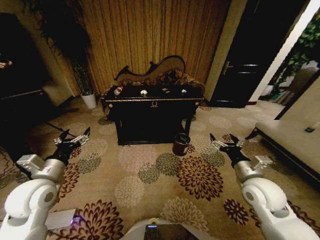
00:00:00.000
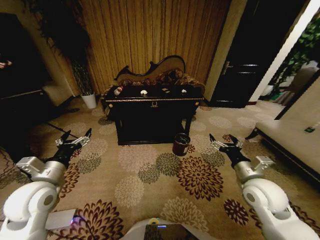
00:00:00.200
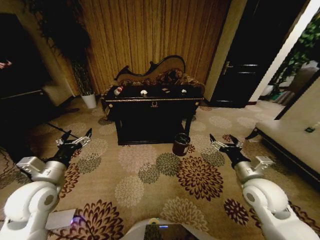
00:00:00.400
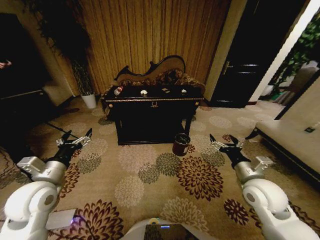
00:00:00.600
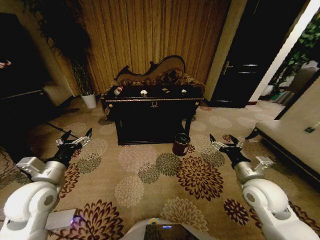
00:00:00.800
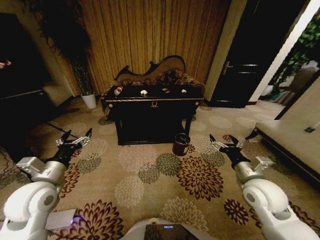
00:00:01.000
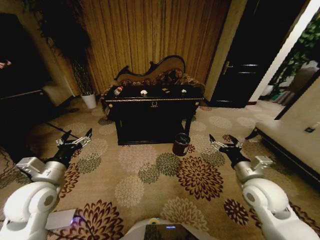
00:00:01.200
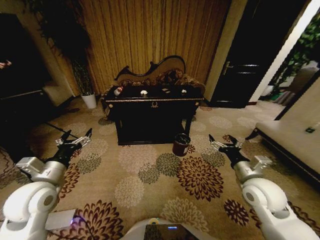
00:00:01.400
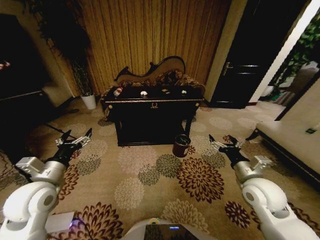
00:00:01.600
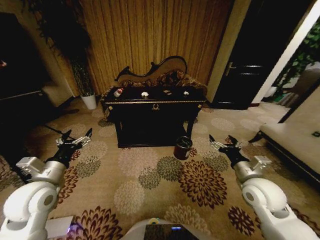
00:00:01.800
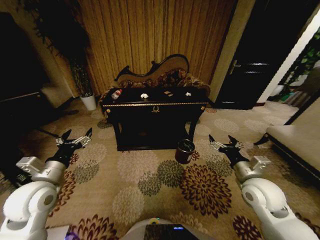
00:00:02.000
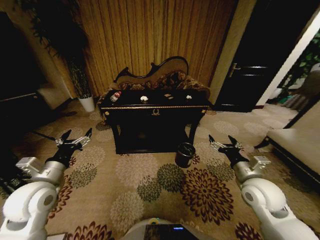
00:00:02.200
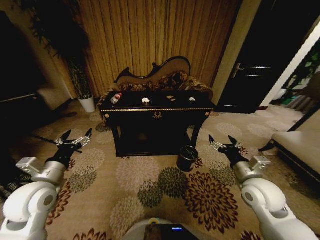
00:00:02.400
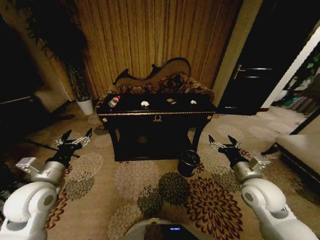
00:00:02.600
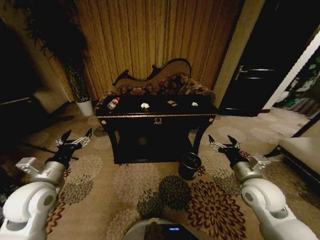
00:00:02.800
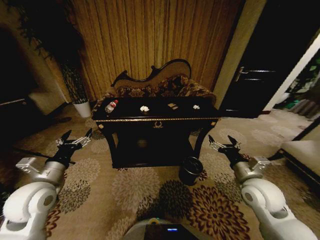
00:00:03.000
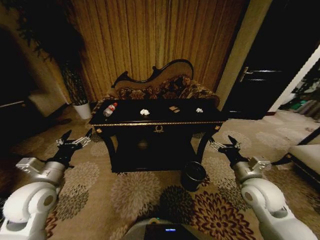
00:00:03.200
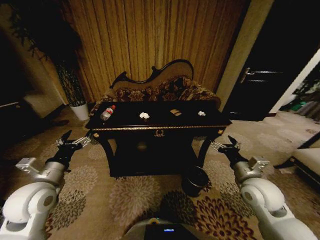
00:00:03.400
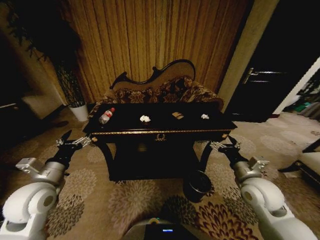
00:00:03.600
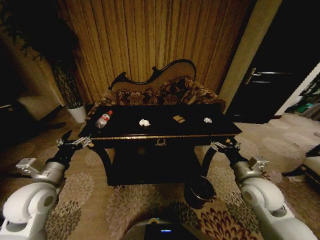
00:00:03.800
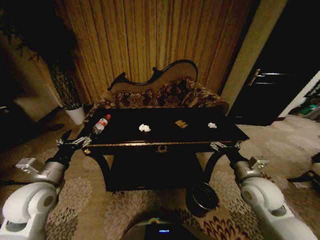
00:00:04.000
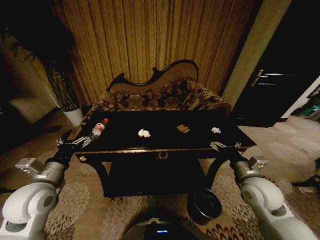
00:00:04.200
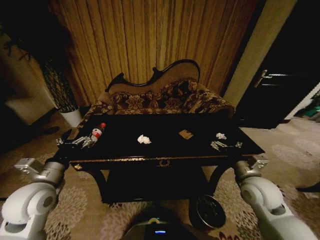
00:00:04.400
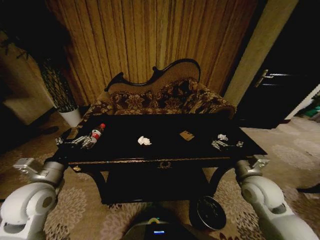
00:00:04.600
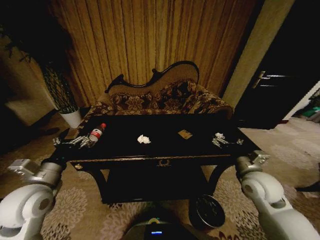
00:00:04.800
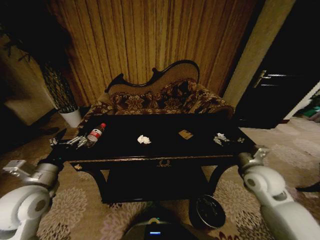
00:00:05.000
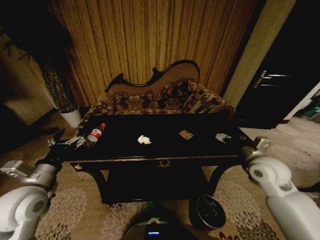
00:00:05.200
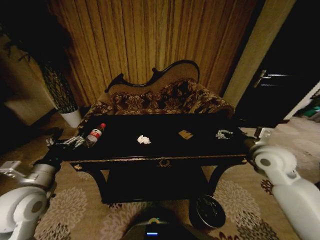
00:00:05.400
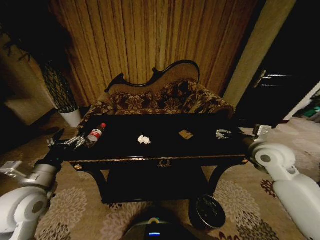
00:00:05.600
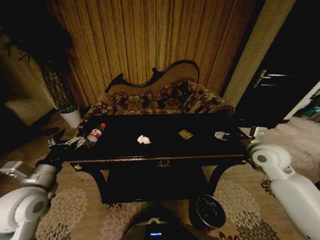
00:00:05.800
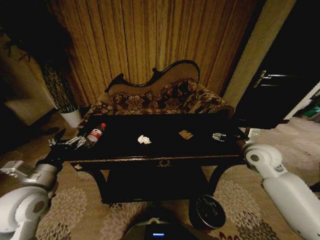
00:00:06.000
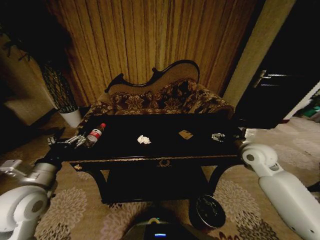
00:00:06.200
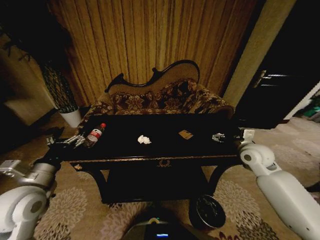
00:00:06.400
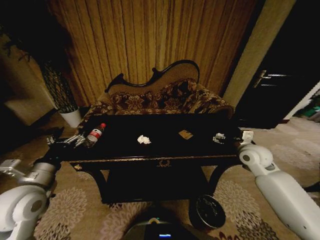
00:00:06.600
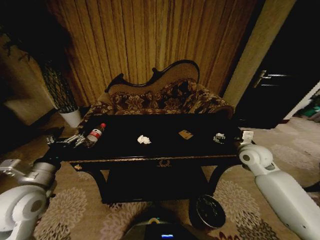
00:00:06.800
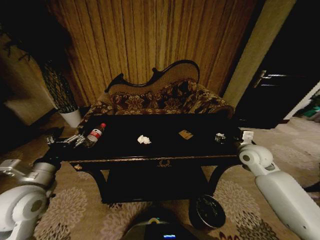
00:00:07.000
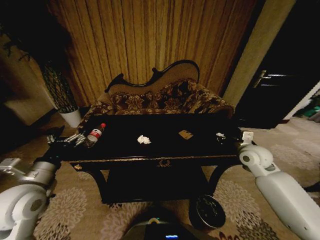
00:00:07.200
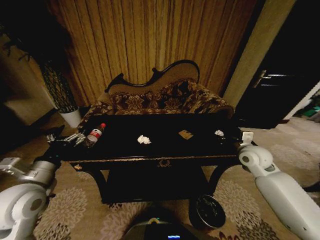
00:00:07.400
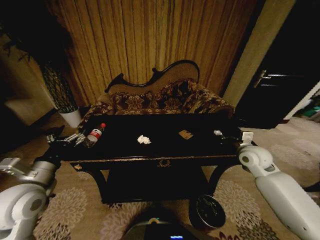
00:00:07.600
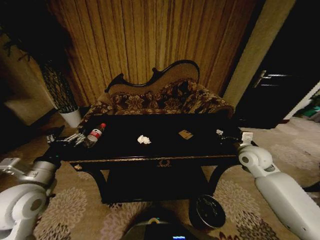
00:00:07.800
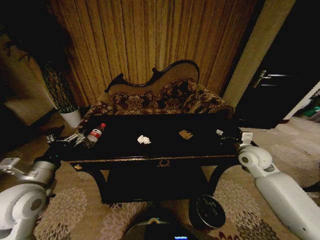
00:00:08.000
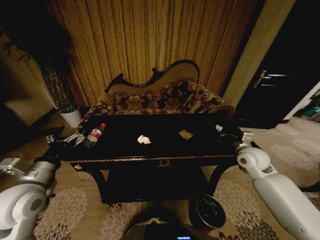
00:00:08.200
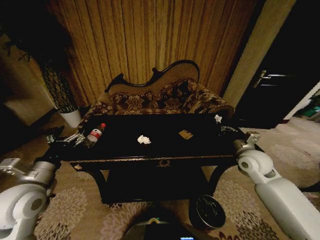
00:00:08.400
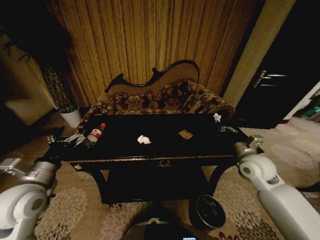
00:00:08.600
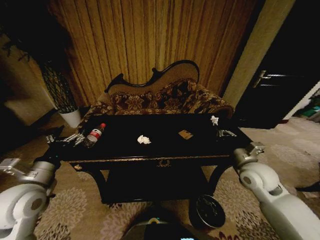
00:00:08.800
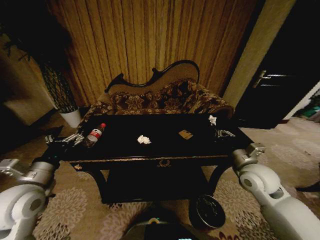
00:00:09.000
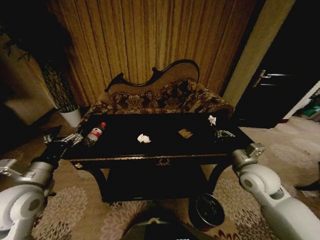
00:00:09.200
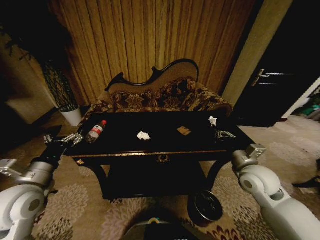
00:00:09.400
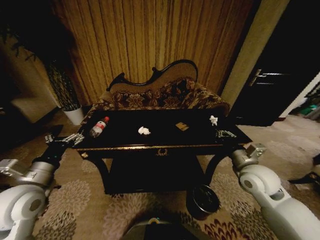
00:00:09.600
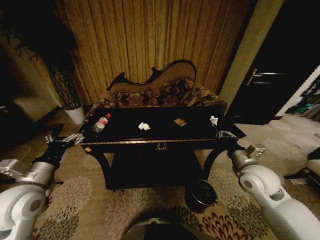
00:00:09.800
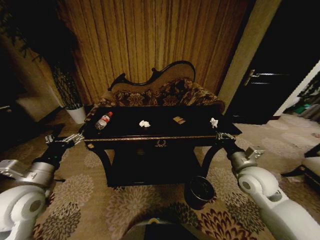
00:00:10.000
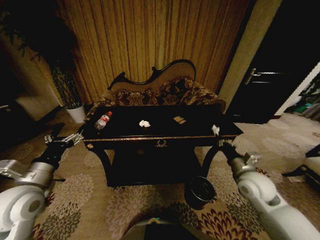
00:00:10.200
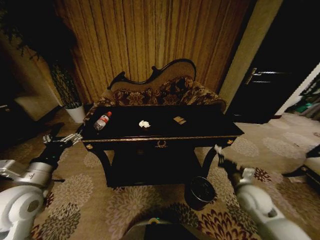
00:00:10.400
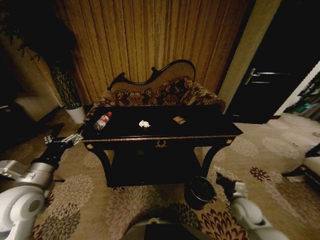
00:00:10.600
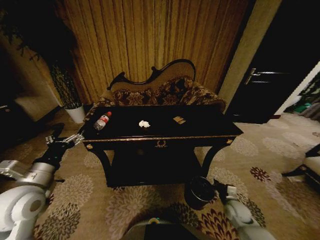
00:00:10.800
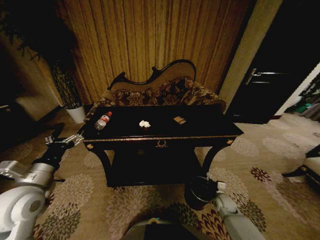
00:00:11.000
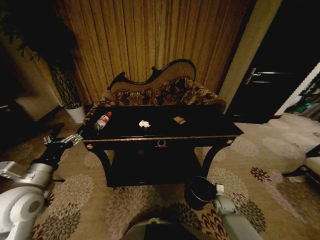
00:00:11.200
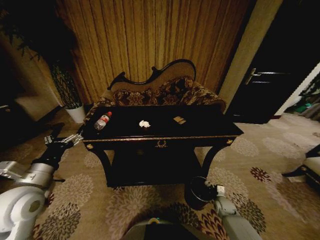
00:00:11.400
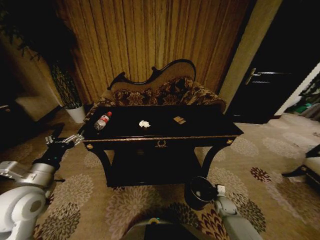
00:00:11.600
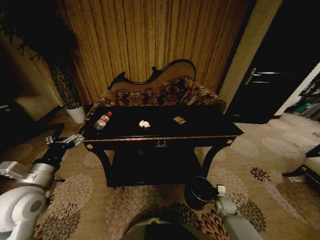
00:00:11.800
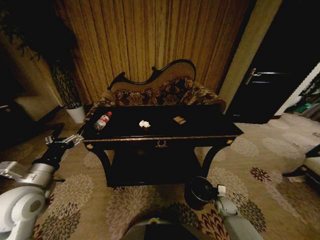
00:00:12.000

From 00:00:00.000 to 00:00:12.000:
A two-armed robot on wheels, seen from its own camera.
Task of the whole recording: Move to the front of the table and place the trash on the table into the trash bin.
From 00:00:04.400 to 00:00:06.000: The right gripper goes about 10 cm forward and upward.
From 00:00:06.000 to 00:00:07.600: The right gripper closes.
From 00:00:07.600 to 00:00:09.000: The right gripper goes approximately 10 cm backward.
From 00:00:09.000 to 00:00:10.400: The right gripper heads downward, covering about 10 cm.
From 00:00:10.400 to 00:00:12.000: The right gripper shifts approximately 25 cm downward, and opens up.

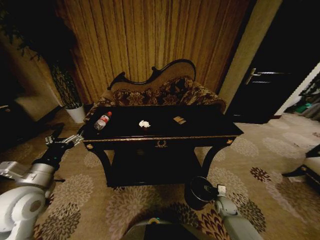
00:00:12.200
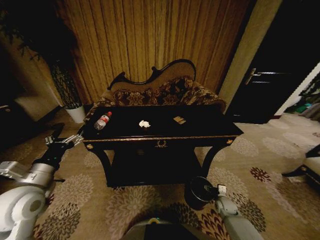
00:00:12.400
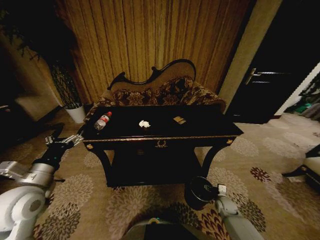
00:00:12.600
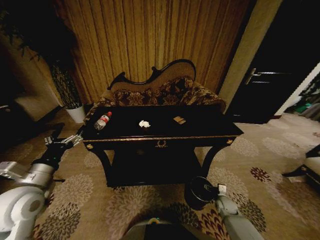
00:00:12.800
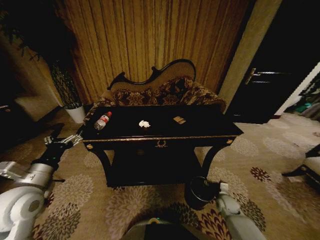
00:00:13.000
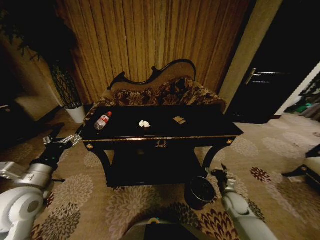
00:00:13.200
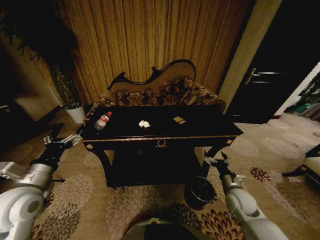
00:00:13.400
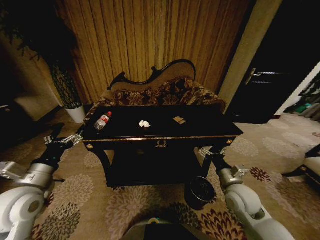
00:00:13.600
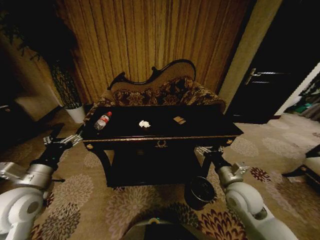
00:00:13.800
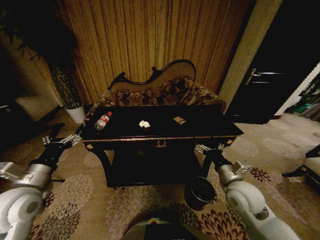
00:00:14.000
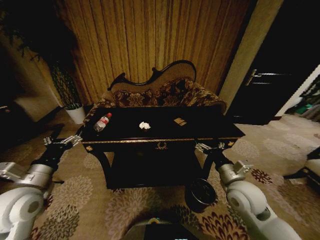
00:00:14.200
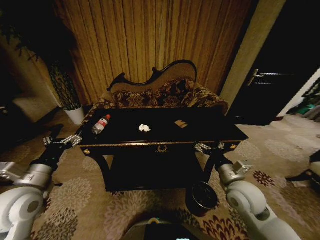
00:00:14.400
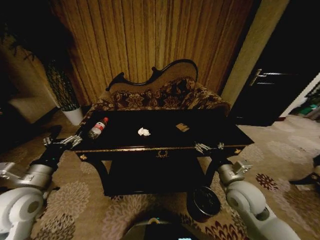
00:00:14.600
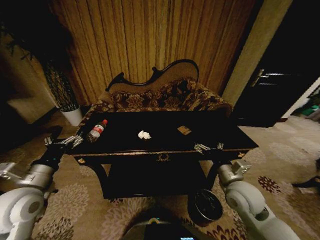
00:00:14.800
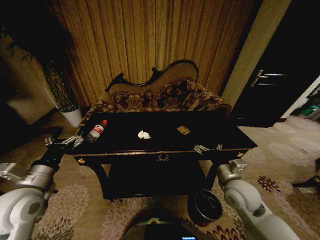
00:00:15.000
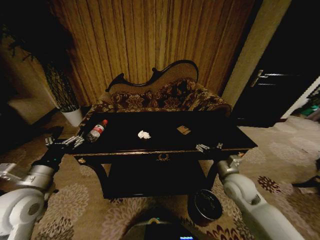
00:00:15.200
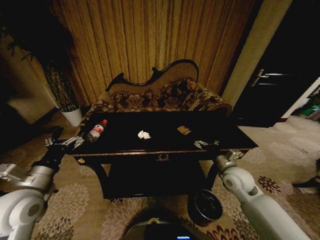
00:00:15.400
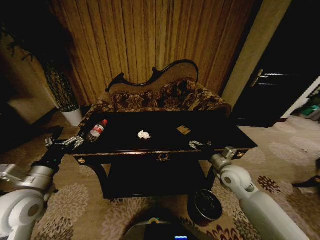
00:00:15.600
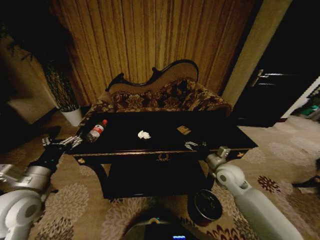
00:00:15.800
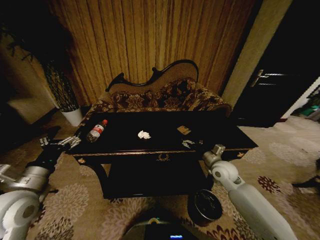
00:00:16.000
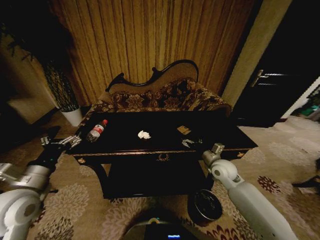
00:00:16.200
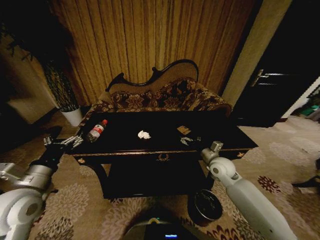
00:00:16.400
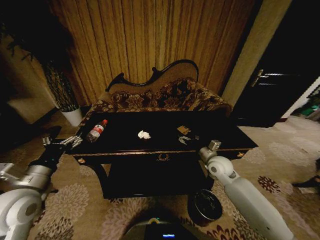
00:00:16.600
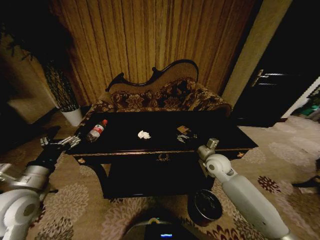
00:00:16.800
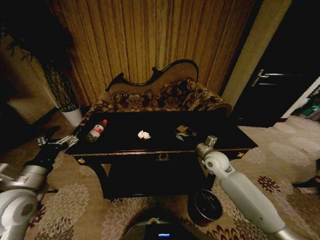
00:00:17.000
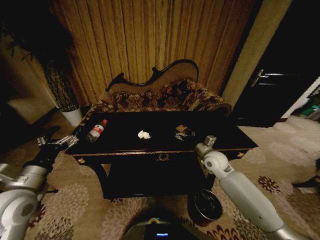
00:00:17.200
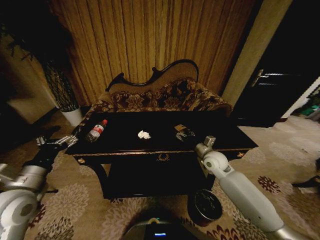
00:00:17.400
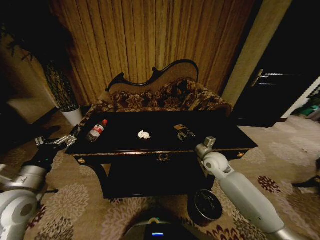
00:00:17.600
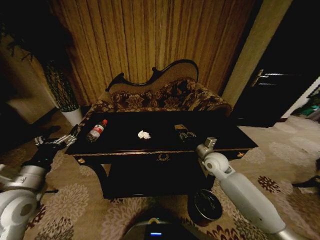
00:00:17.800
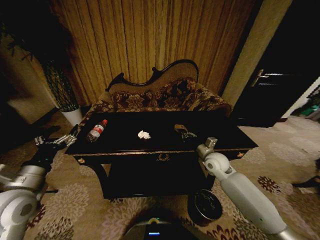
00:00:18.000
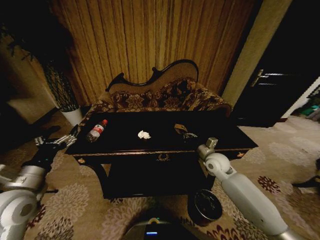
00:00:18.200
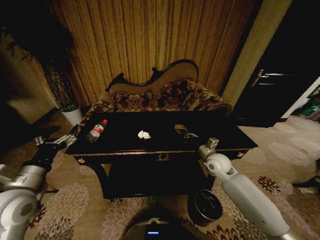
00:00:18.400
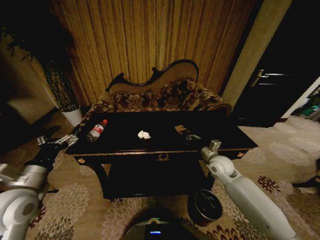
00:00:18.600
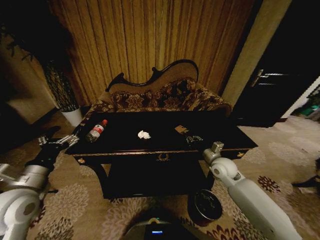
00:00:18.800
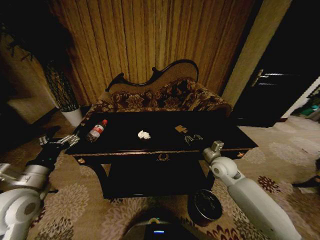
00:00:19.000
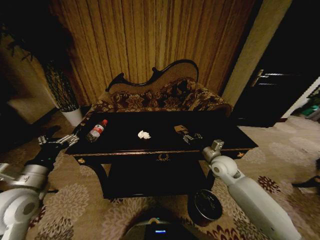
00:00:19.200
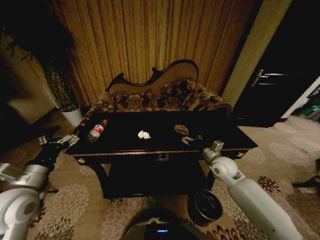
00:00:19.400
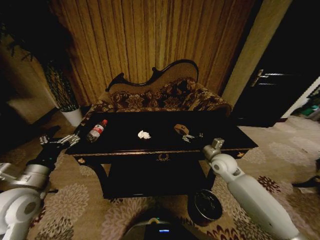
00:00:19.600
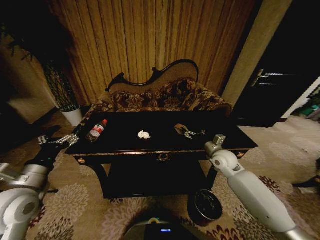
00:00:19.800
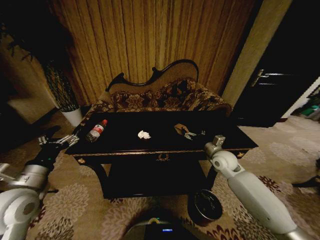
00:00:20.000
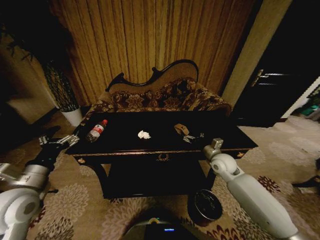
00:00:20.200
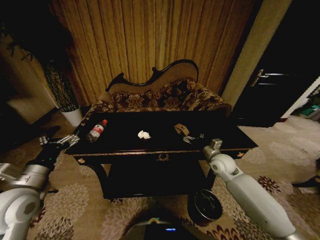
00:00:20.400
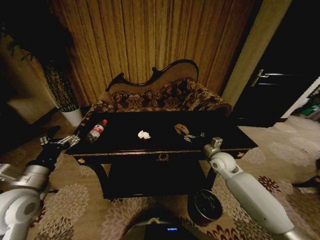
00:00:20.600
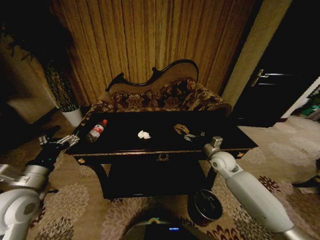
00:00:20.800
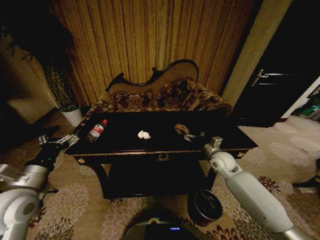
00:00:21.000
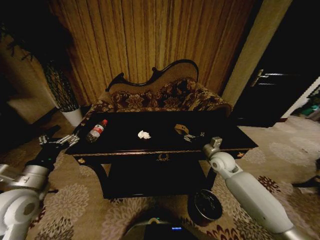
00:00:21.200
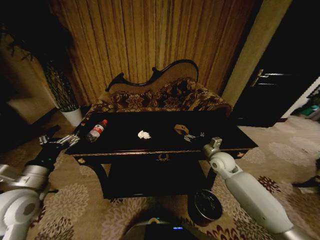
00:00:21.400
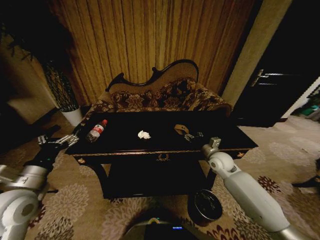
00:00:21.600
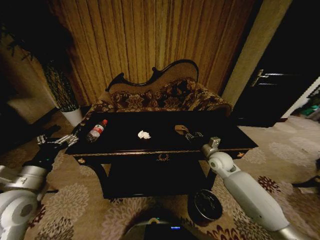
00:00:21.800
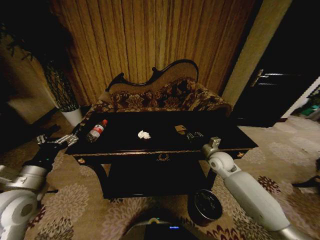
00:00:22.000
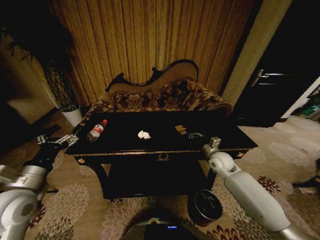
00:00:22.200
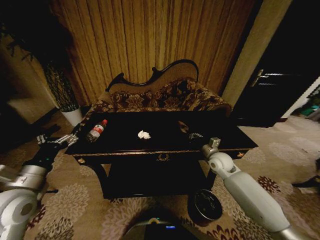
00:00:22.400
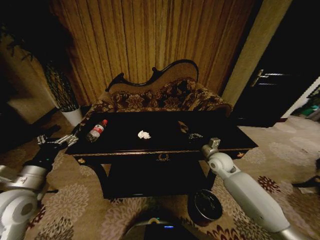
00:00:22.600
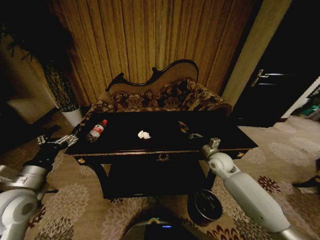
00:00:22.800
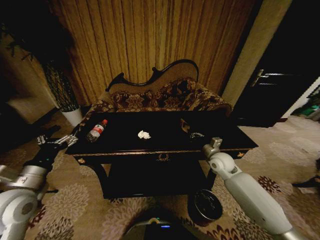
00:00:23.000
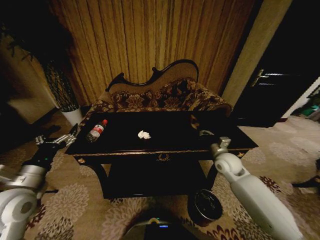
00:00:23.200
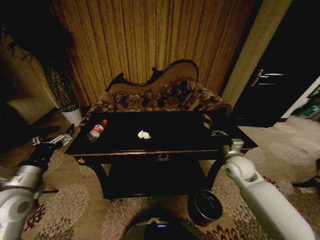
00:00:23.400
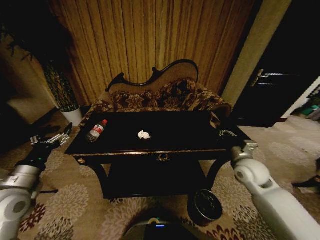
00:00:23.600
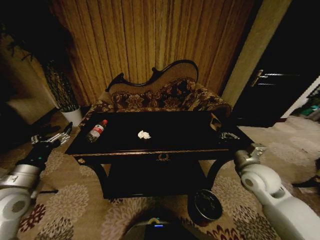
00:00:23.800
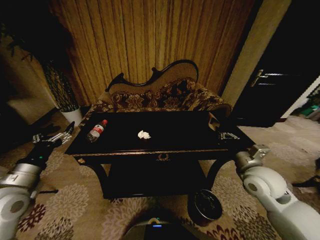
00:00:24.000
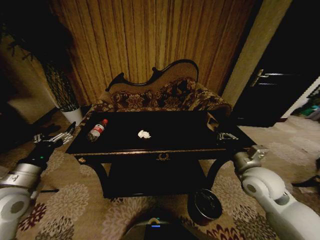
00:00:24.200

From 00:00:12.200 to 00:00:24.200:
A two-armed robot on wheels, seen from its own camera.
Task of the whole recording: Move to the front of the table and place the trash on the table into the trash bin.
From 00:00:12.200 to 00:00:13.800: The right gripper shifts roughly 30 cm upward.
From 00:00:13.800 to 00:00:15.200: The right gripper ends up some 5 cm from where it was.
From 00:00:15.200 to 00:00:16.600: The right gripper goes some 10 cm forward.
From 00:00:16.600 to 00:00:18.200: The right gripper closes up.
From 00:00:18.200 to 00:00:19.800: The right gripper opens.
From 00:00:19.800 to 00:00:21.200: The grippers make only small movements.
From 00:00:21.200 to 00:00:22.600: The right gripper closes its fingers.
From 00:00:22.600 to 00:00:24.200: The right gripper is displaced backward and upward by some 15 cm.
